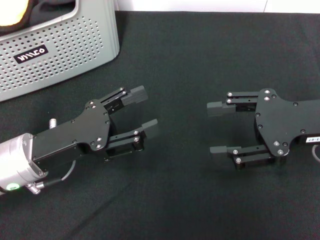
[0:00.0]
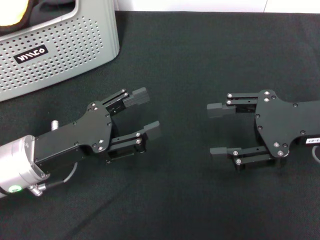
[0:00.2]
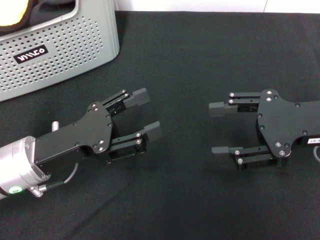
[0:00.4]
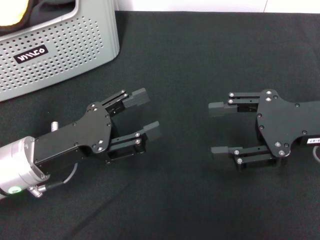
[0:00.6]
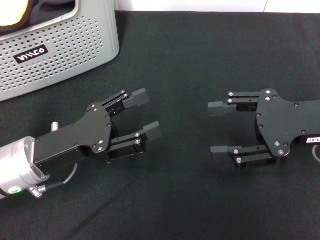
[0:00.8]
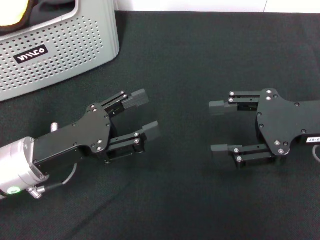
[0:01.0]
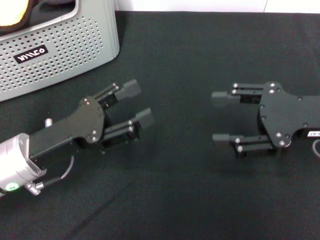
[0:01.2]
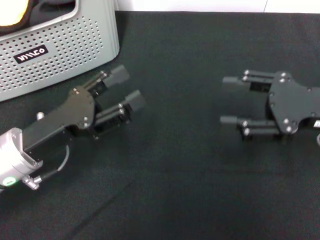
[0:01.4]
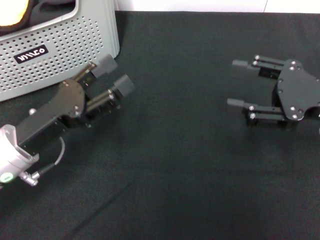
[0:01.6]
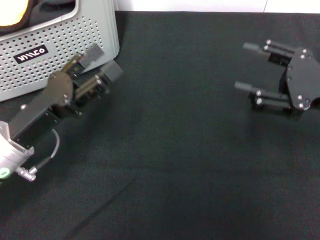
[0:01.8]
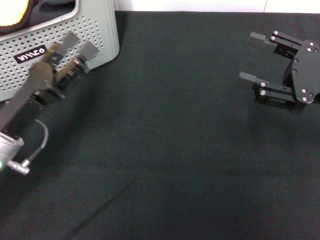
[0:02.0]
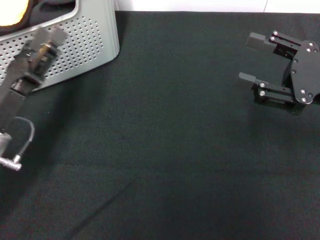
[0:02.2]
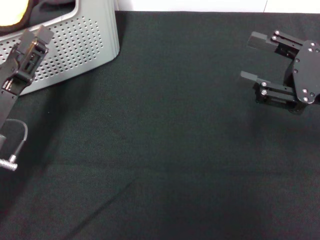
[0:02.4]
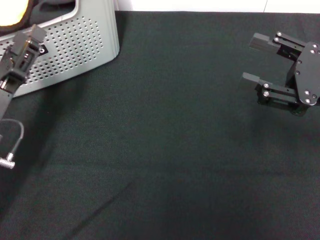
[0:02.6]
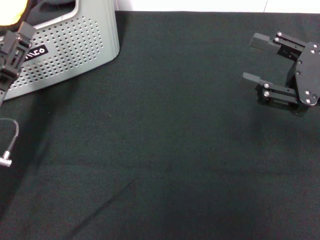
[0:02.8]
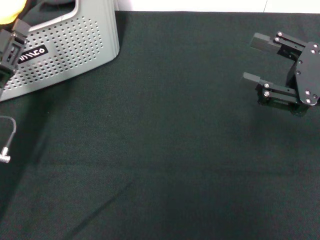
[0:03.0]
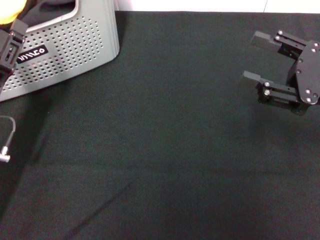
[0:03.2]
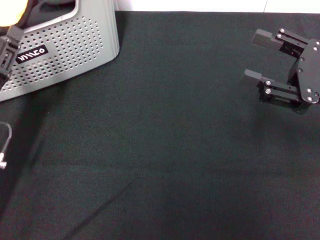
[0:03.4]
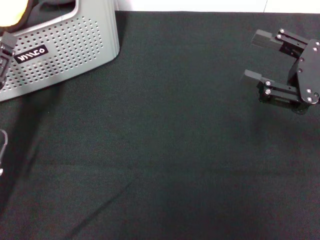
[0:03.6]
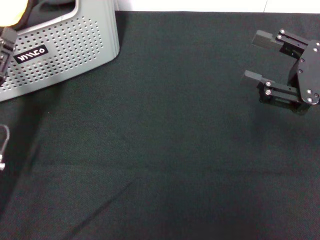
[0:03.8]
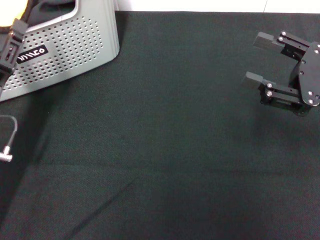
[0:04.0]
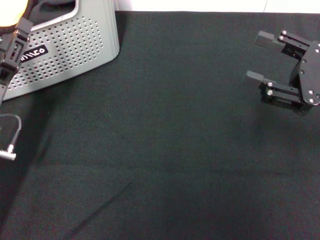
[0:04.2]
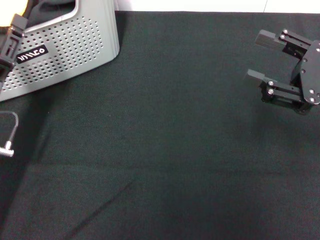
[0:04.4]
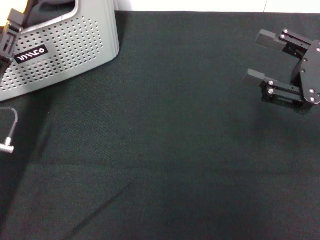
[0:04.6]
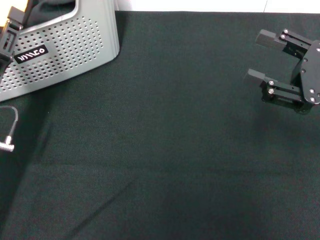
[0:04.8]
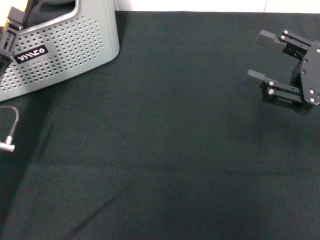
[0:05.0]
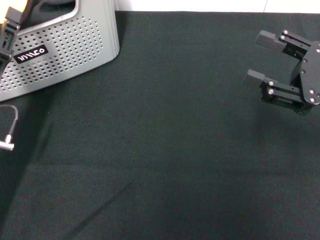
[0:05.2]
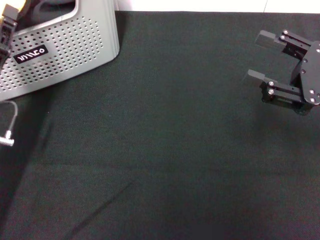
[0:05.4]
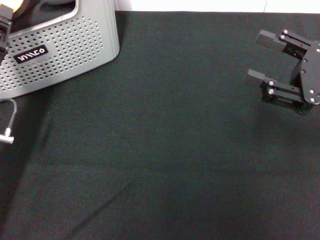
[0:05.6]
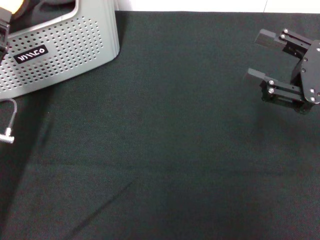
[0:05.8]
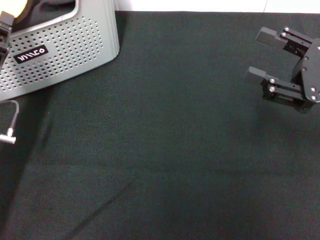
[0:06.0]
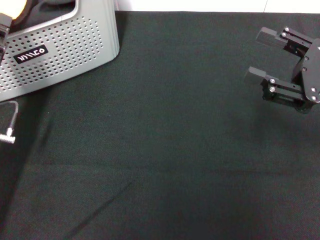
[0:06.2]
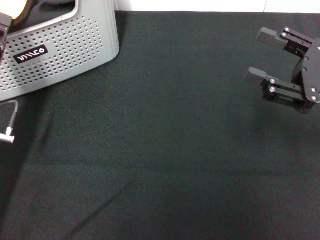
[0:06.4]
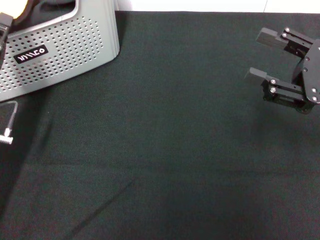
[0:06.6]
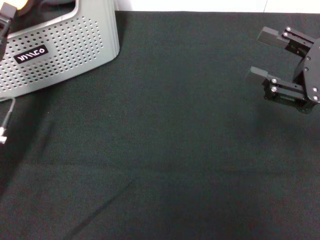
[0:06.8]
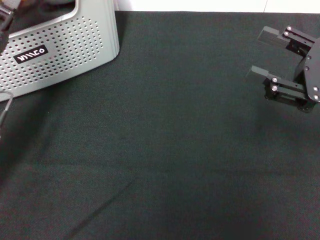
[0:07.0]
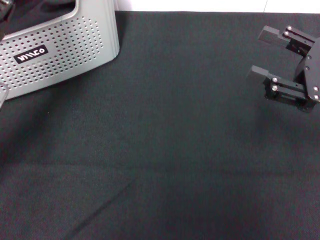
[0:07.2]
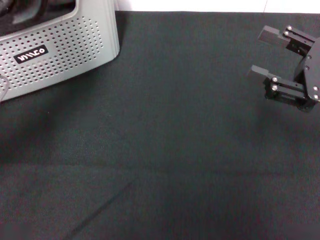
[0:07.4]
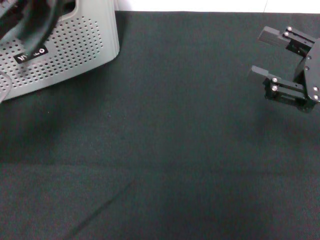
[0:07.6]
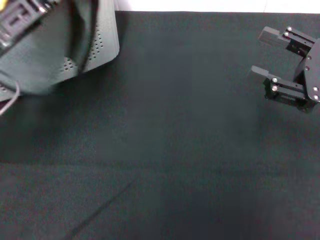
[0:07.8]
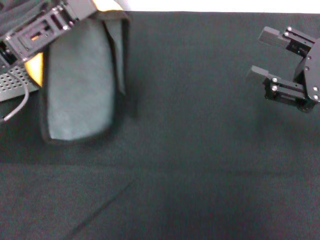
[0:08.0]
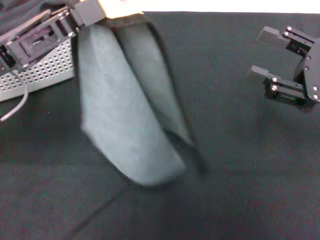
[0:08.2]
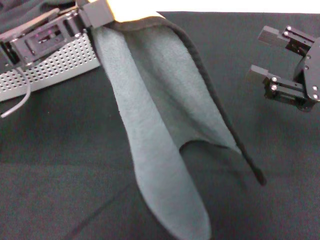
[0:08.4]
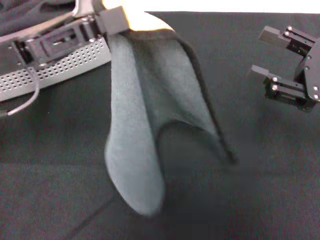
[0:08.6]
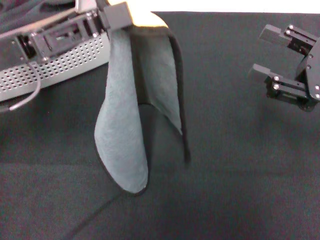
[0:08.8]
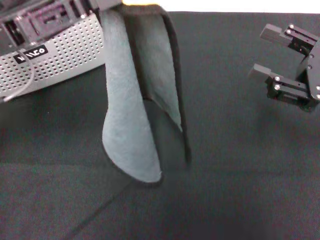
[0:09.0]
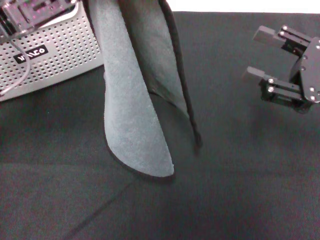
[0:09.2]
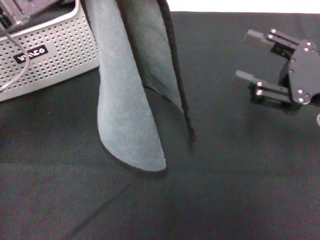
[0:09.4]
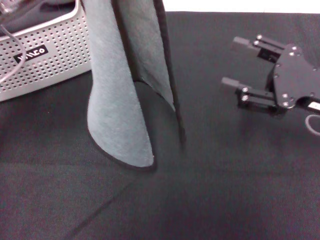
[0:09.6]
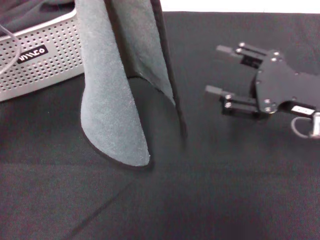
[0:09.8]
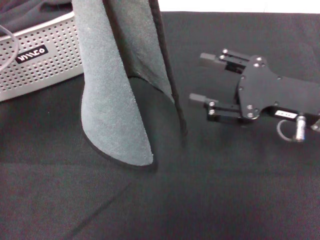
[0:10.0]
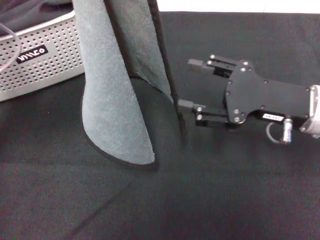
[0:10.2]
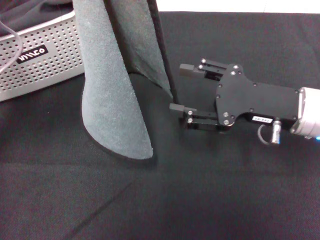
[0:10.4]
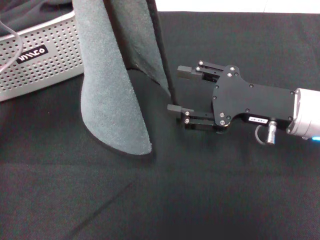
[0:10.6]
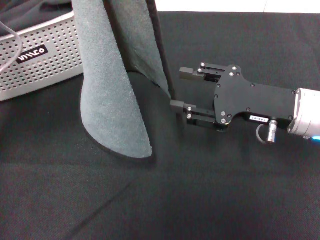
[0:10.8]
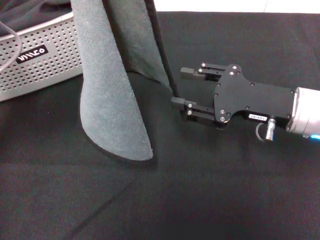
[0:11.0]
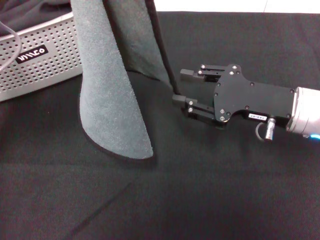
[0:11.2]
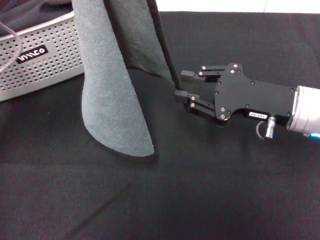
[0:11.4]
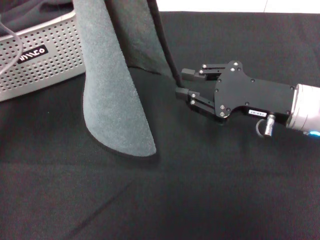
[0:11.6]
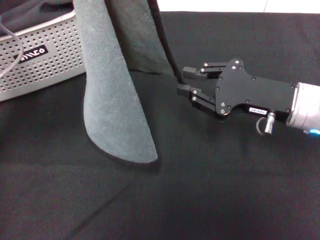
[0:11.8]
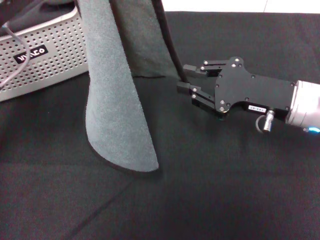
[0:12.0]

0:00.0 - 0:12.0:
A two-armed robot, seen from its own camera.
Task of the whole recording: pick up the towel from the storage box and lay it flat on the black tablecloth.
Step, 0:00.0 - 0:05.8: Pick up a towel with the left gripper.
0:00.0 - 0:01.6: There are only small adjustments of the grippers.
0:01.6 - 0:03.0: The left gripper ends up some 5 cm from where it was.
0:03.0 - 0:04.4: There are only small adjustments of the grippers.
0:04.4 - 0:06.0: The left gripper closes its fingers.
0:06.0 - 0:07.6: The left gripper goes approximately 10 cm upward.
0:07.6 - 0:09.0: The left gripper goes roughly 5 cm upward.
0:09.0 - 0:10.4: The right gripper moves to the left, about 10 cm.
0:10.4 - 0:12.0: The right gripper closes its fingers.

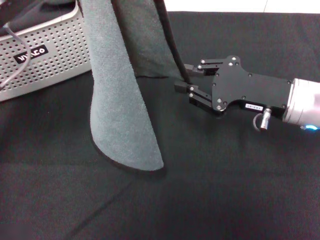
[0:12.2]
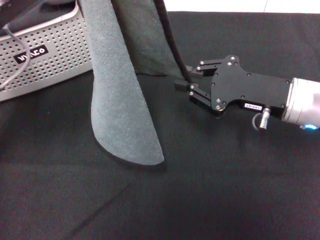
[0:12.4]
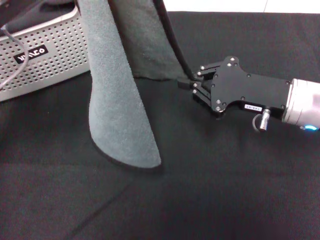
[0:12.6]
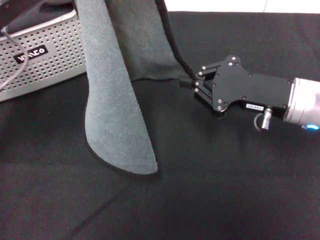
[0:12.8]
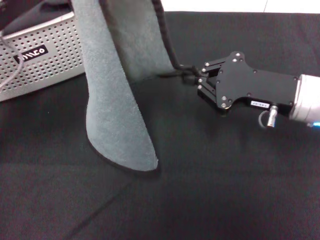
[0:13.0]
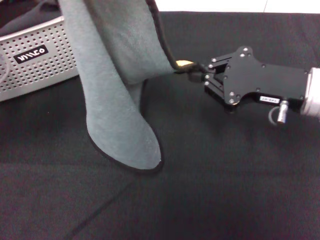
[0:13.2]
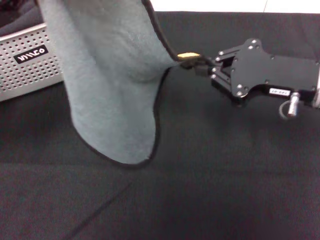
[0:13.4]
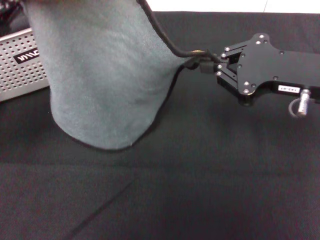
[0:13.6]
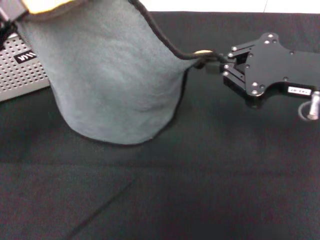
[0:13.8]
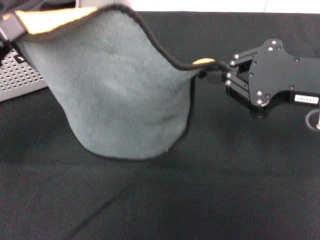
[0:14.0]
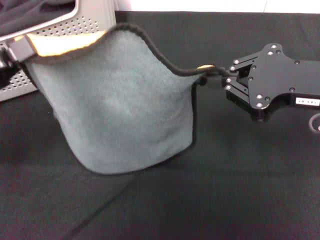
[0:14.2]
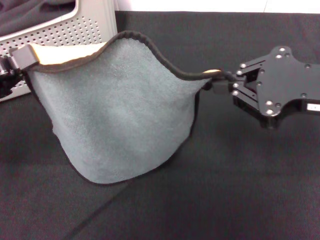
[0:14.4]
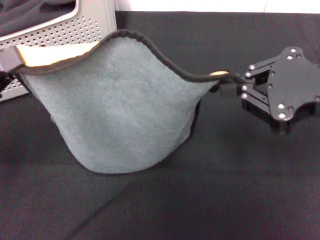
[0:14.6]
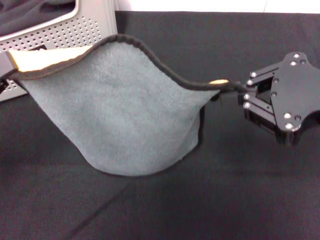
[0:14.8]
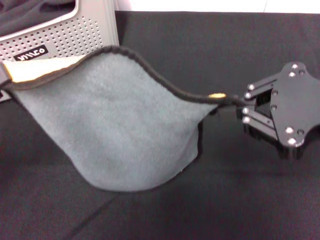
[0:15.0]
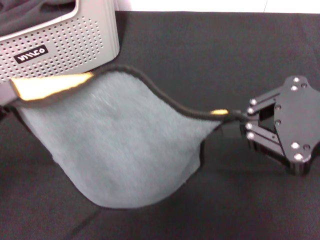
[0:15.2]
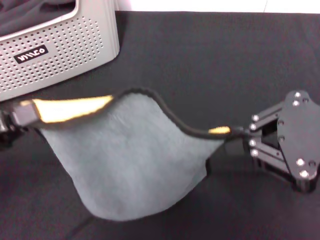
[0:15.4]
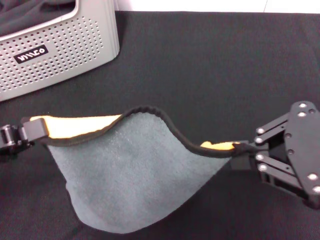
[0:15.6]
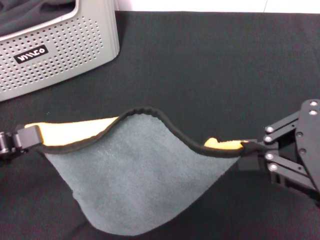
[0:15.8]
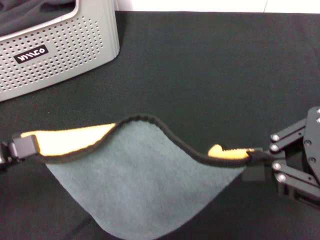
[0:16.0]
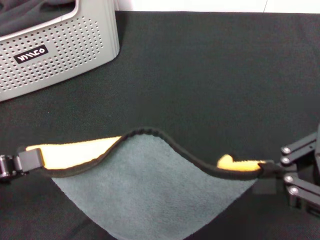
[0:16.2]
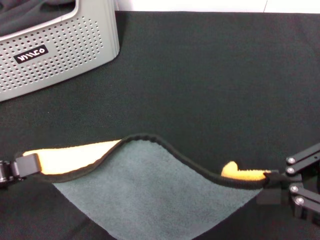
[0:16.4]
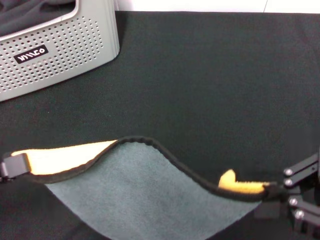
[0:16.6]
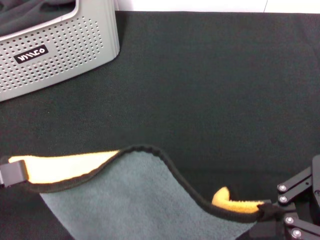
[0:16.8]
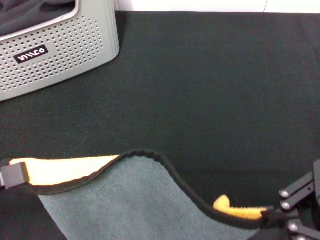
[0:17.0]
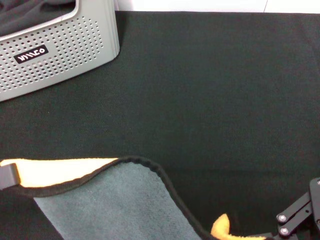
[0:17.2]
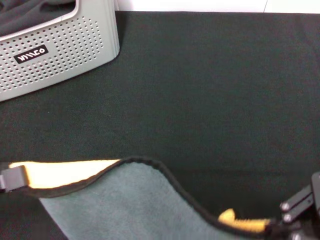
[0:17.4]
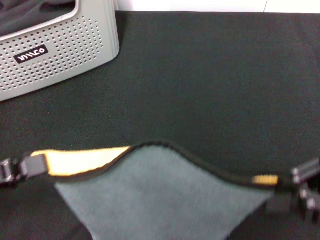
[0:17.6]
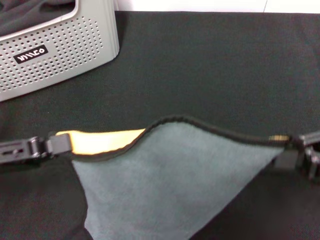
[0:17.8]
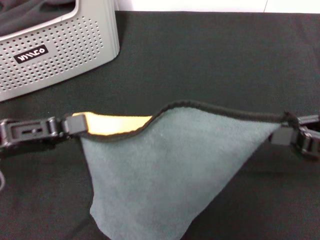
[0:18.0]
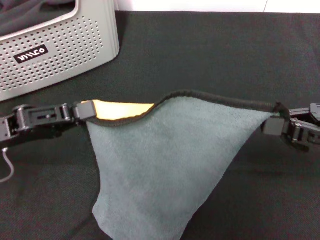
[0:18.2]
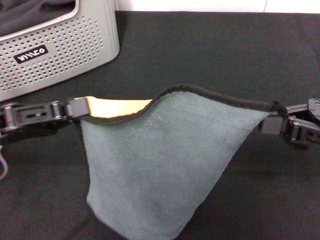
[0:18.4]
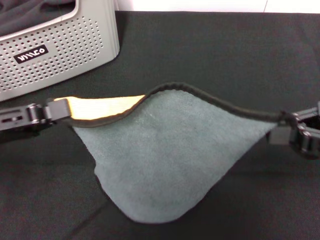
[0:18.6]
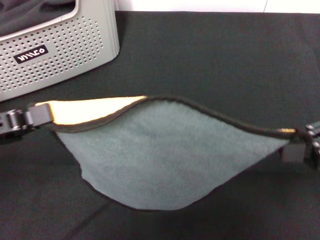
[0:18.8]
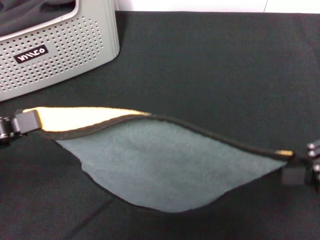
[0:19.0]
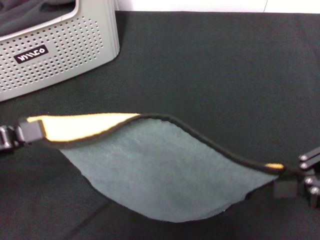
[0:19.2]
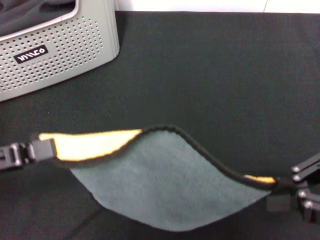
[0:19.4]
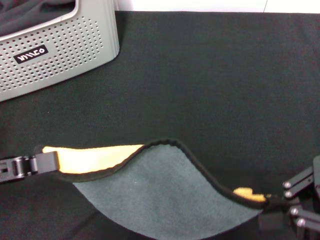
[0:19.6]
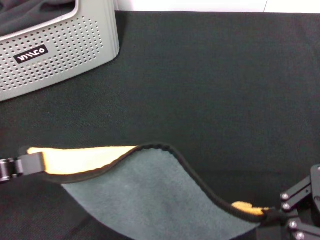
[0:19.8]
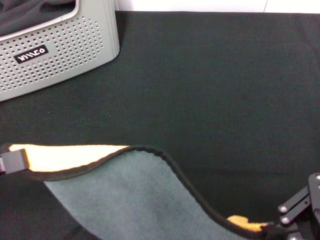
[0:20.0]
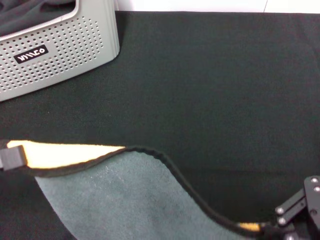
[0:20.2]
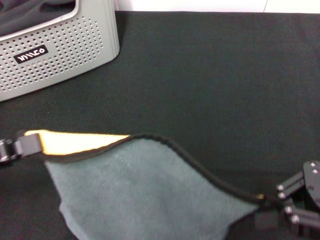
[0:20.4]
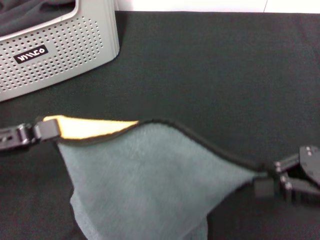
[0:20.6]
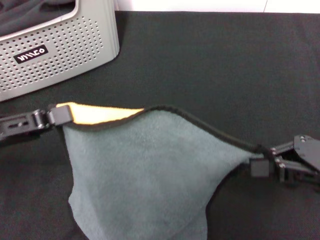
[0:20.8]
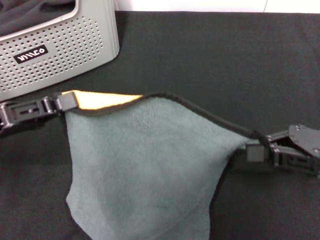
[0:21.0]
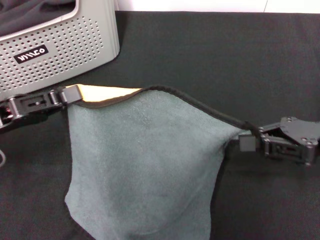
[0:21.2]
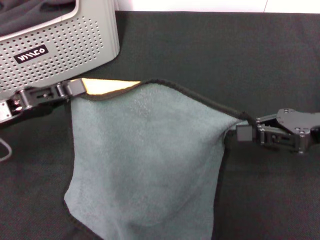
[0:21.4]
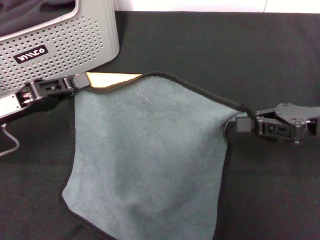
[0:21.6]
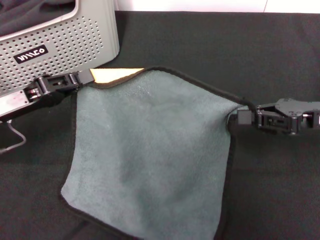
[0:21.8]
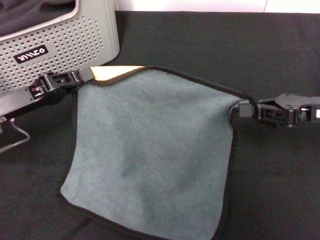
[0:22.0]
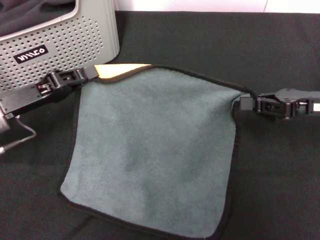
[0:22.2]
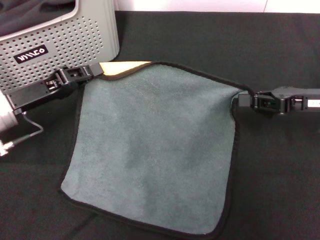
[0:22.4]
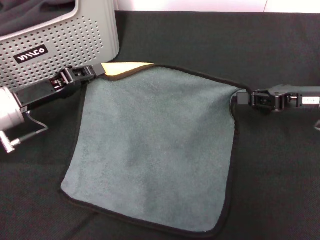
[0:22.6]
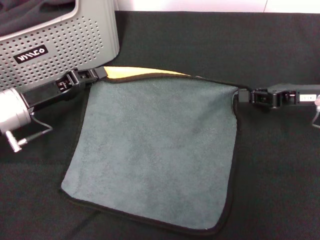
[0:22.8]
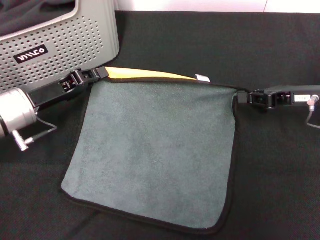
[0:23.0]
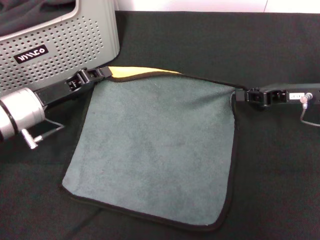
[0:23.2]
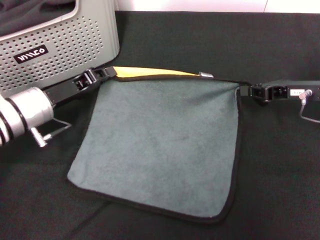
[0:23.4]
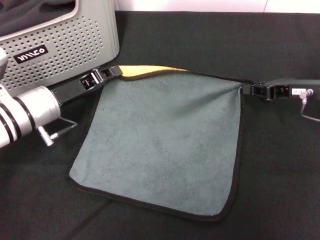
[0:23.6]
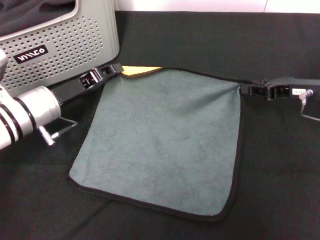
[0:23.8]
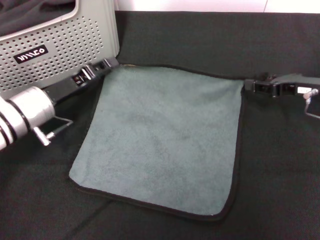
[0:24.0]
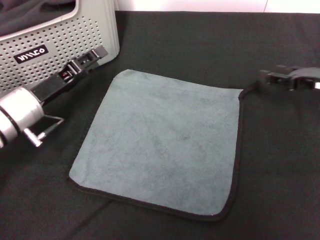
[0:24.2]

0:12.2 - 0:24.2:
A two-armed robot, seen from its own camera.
Task of the whole recording: pick up the towel from the storage box and lay it flat on the black tablecloth.
Step, 0:12.8 - 0:24.0: Spread the towel flat with the right gripper.
0:12.2 - 0:13.8: The right gripper moves upward, about 10 cm. Meanwhile the left gripper travels to the left by roughly 10 cm.
0:13.8 - 0:15.2: The right gripper is displaced backward and upward by approximately 10 cm; the left gripper moves backward, about 5 cm.
0:15.2 - 0:16.6: The right gripper ends up approximately 5 cm from where it was.
0:16.6 - 0:18.2: The right gripper is displaced forward and downward by some 10 cm. Meanwhile the left gripper heads forward, covering about 10 cm.
0:18.2 - 0:19.8: The left gripper heads backward, covering approximately 5 cm, while the right gripper is displaced backward and upward by some 10 cm.
0:19.8 - 0:21.2: The right gripper is displaced forward and downward by approximately 10 cm; the left gripper travels forward by approximately 5 cm.
0:21.2 - 0:22.6: The grippers both shift forward by some 5 cm.
0:22.6 - 0:24.2: The right gripper opens. The left gripper opens up.